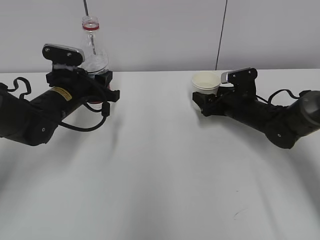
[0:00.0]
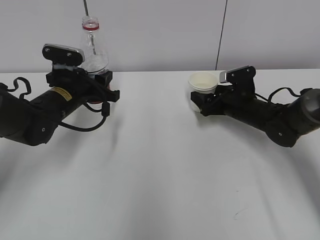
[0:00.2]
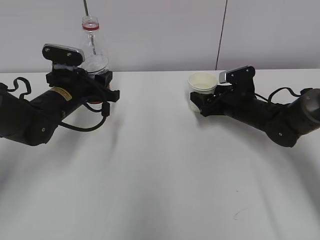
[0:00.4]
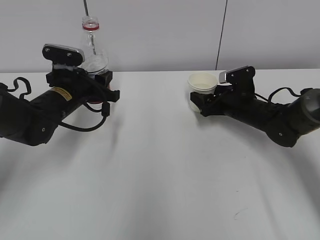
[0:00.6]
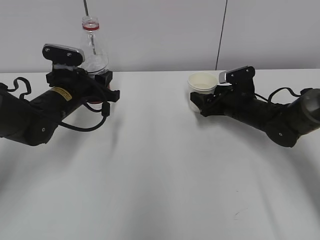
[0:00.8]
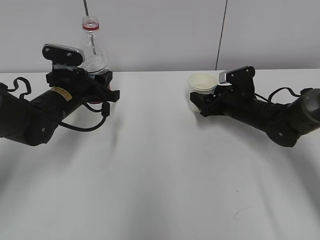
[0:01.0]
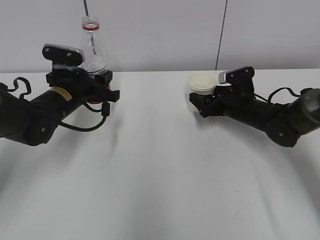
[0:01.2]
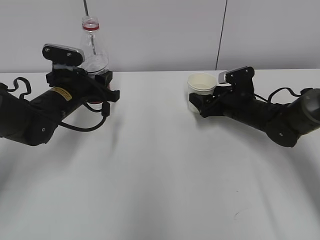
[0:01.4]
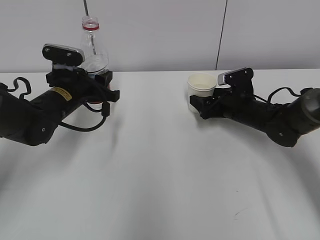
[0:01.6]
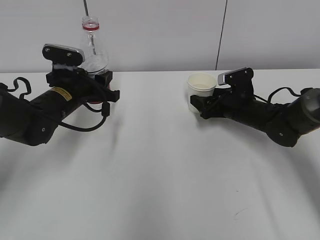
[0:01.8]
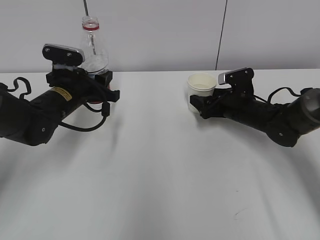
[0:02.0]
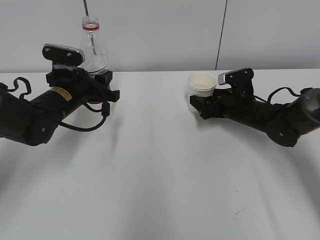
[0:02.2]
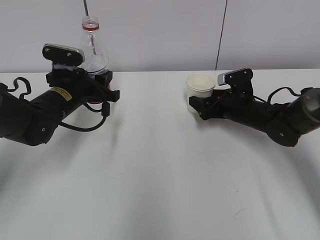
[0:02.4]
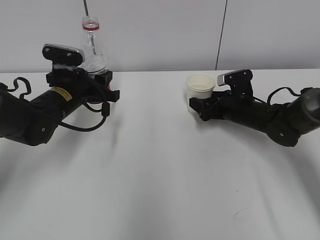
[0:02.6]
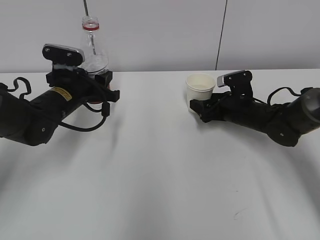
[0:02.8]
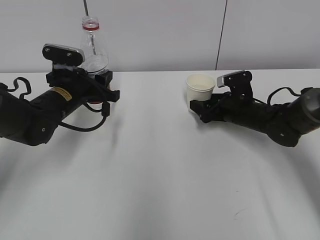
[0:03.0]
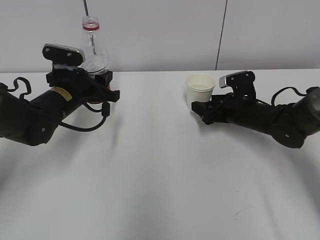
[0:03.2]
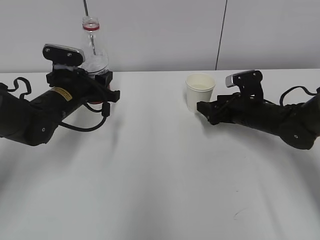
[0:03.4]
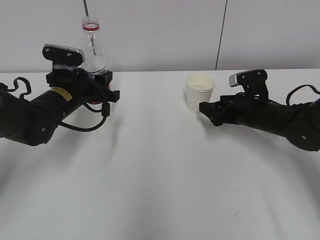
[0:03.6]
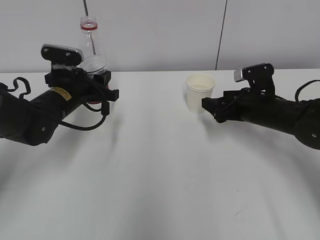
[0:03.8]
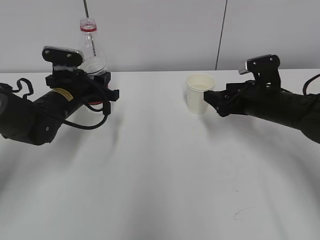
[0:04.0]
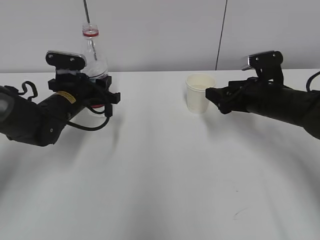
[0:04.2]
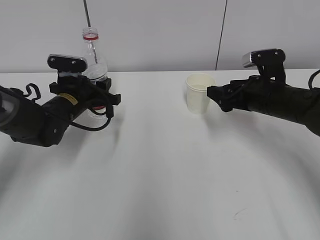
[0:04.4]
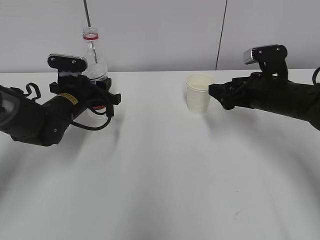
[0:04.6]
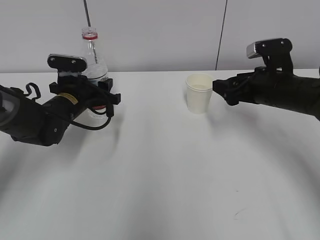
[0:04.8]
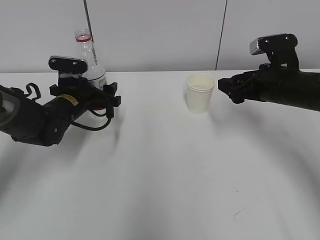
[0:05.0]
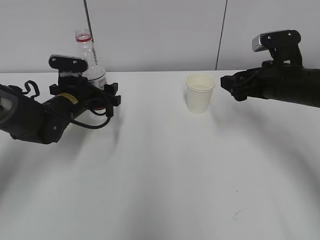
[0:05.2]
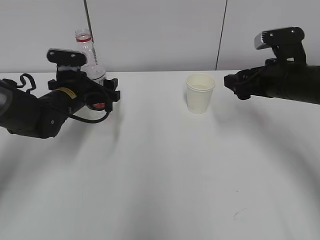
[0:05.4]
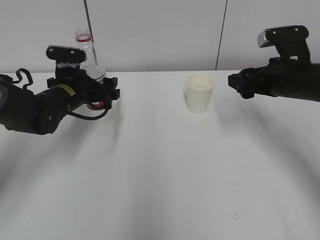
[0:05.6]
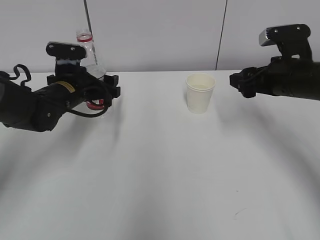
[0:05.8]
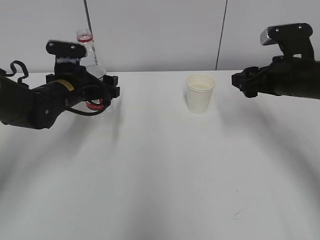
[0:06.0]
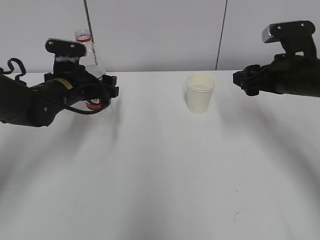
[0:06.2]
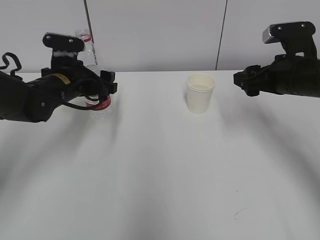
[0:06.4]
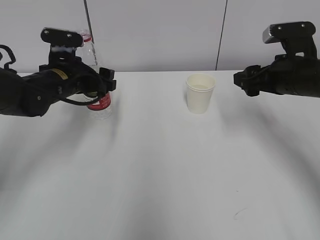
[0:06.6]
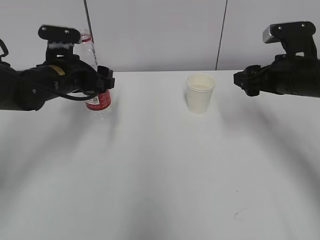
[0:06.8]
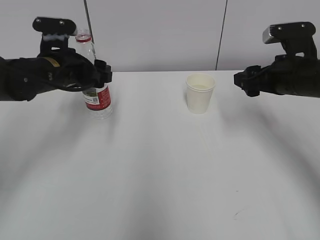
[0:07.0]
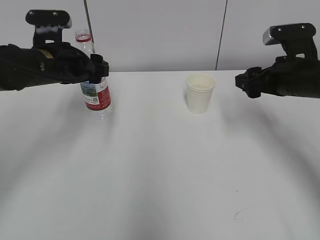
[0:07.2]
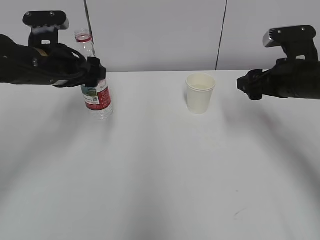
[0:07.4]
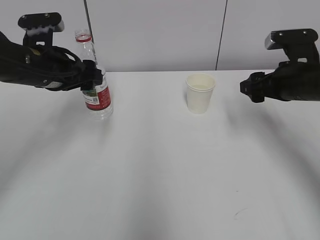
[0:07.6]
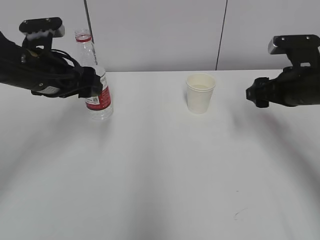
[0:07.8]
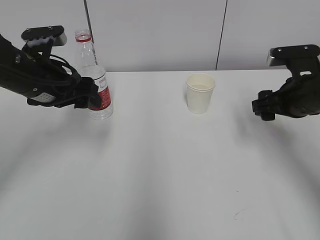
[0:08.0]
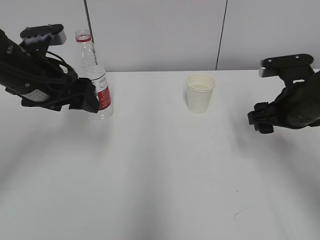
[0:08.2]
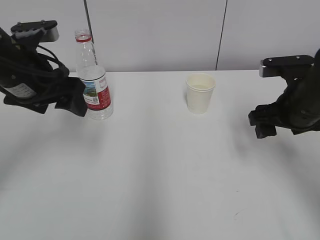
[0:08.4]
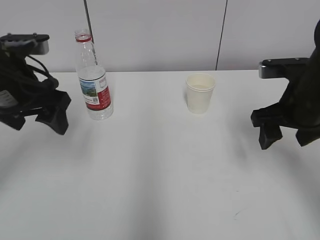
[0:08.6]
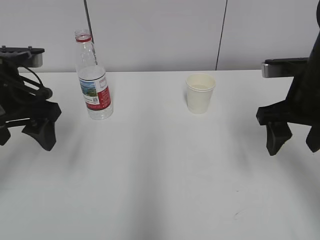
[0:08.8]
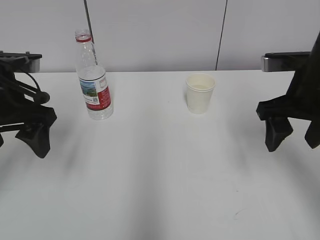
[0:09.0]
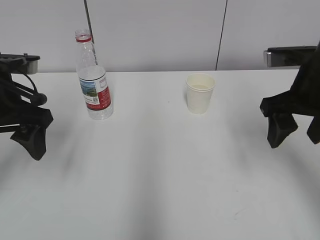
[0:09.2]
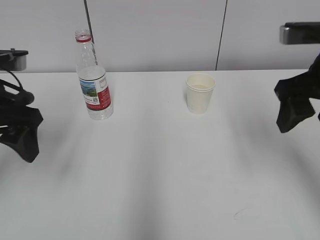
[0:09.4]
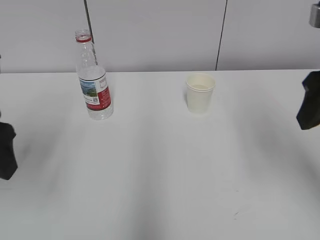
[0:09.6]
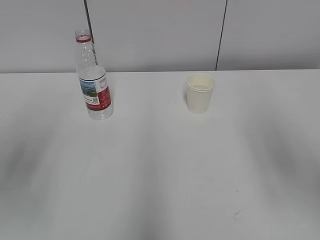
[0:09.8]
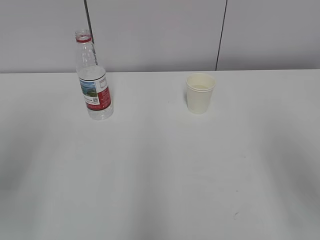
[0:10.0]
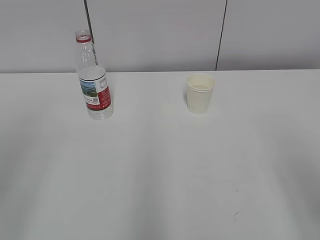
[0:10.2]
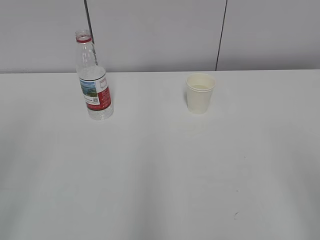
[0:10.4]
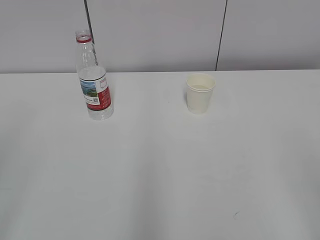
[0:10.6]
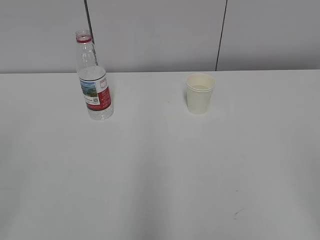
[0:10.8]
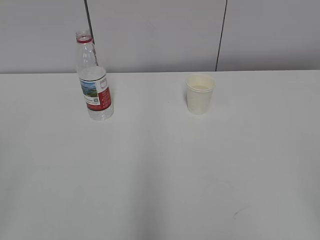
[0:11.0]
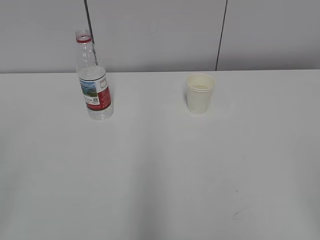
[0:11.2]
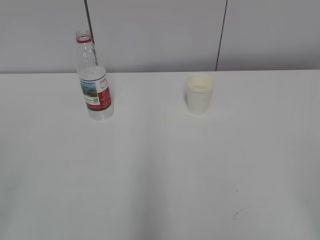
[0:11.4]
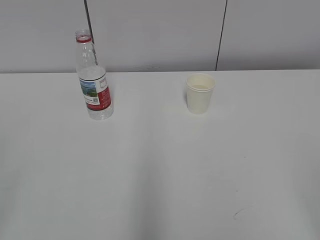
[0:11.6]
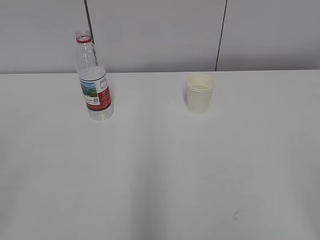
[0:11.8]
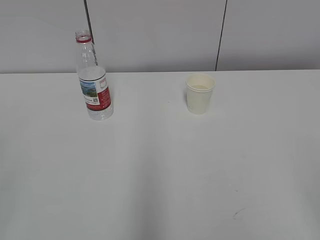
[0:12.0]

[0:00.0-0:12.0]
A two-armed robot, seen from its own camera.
0:00.0 to 0:01.6: Neither gripper changes place.
0:01.6 to 0:03.0: Neither gripper changes place.
0:03.0 to 0:04.4: The right gripper heads upward and backward, covering about 10 cm.
0:04.4 to 0:06.0: The right gripper travels upward by some 5 cm, while the left gripper opens.
0:06.0 to 0:07.6: The left gripper goes about 10 cm upward.
0:07.6 to 0:09.0: The right gripper is displaced backward and upward by about 10 cm; the left gripper goes approximately 10 cm backward.
0:09.0 to 0:10.4: Both grippers move backward, about 20 cm.

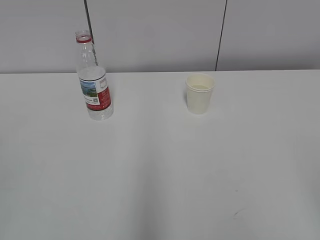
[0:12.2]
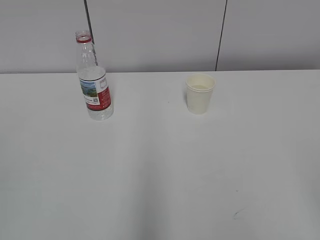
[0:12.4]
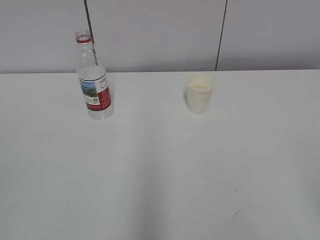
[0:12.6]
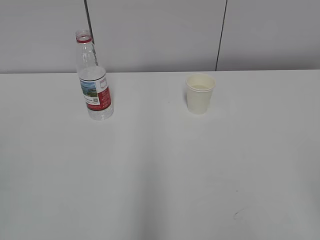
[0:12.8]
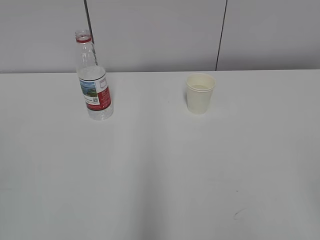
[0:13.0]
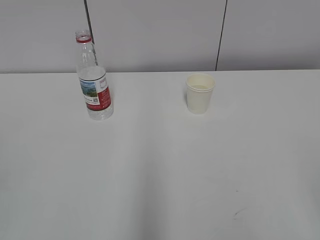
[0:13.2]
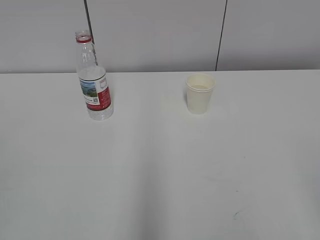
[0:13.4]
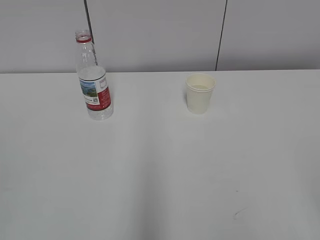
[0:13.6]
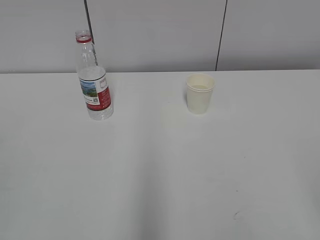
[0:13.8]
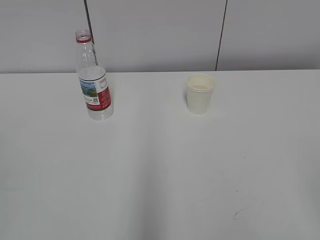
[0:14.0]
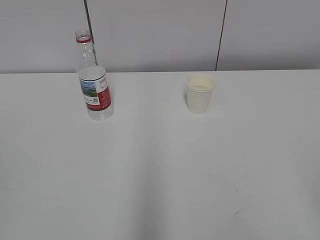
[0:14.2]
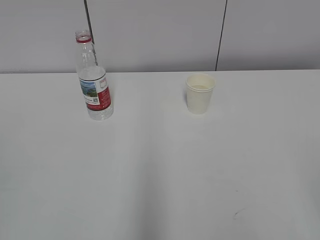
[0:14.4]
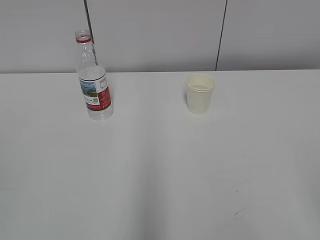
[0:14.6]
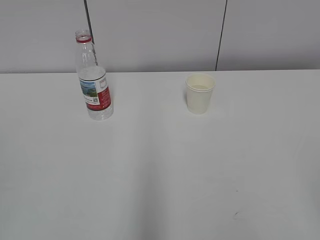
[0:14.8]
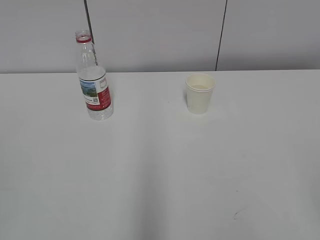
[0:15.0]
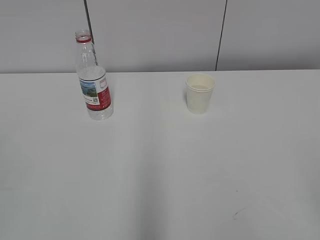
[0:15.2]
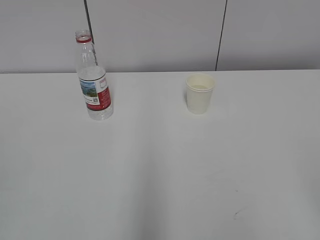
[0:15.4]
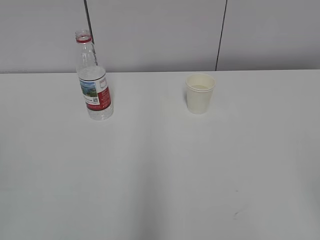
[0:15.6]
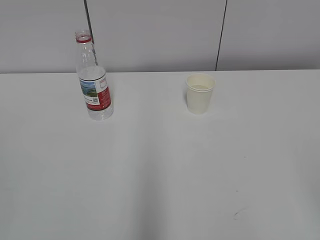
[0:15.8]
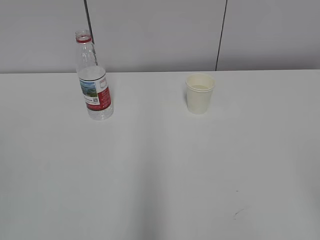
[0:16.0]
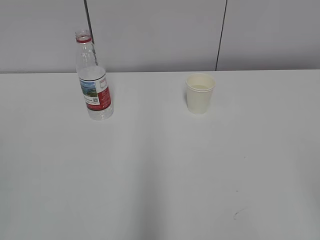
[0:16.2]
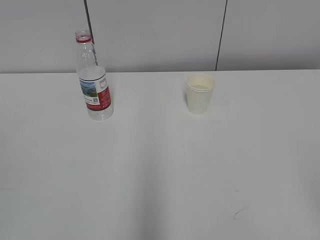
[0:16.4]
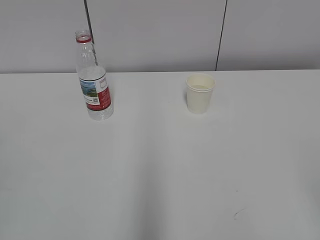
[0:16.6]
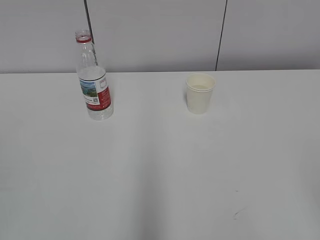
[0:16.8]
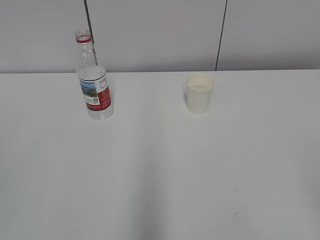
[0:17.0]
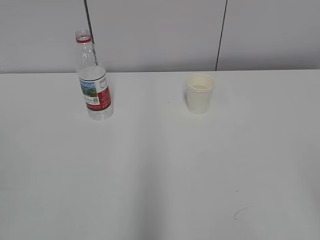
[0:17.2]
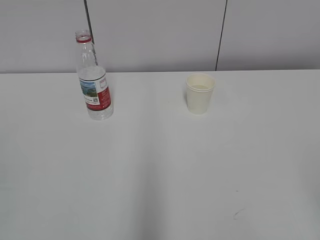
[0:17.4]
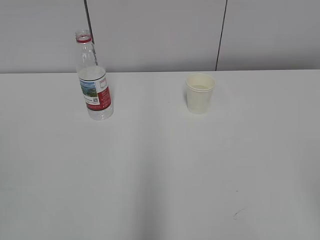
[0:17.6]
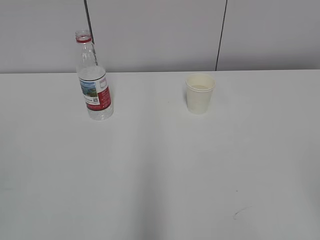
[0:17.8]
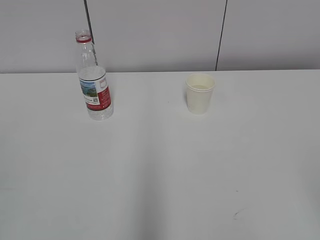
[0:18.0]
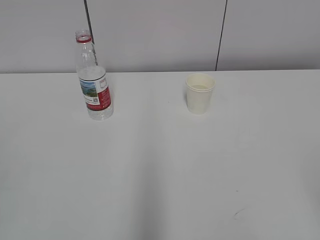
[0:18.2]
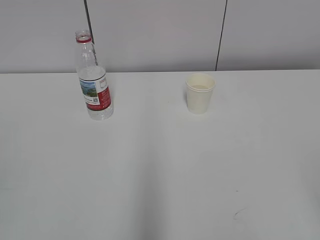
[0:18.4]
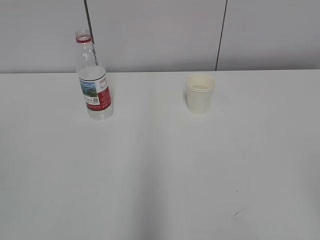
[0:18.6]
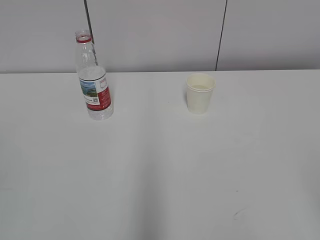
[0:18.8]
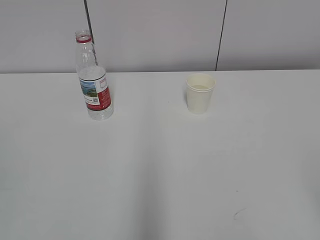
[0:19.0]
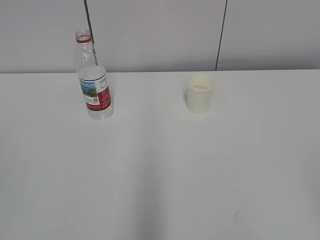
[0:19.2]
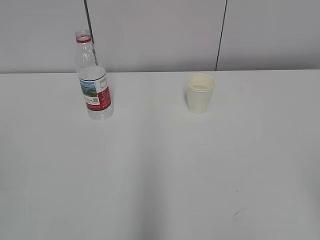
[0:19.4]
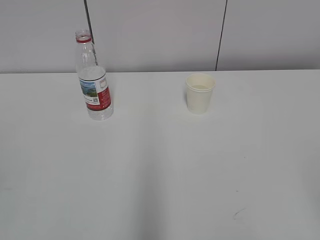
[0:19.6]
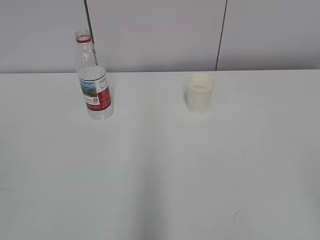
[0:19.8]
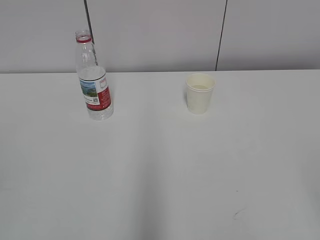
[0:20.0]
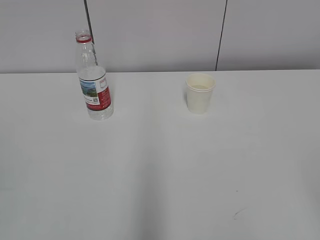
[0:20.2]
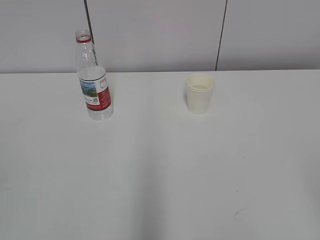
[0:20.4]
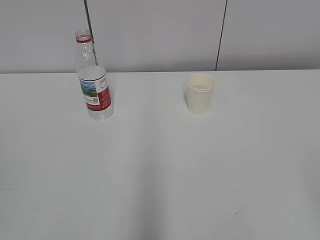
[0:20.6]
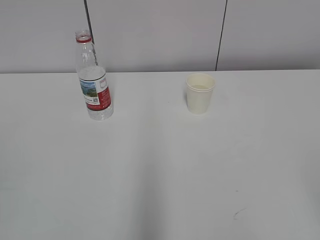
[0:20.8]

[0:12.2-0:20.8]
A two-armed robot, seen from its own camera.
0:12.2 to 0:20.8: Both grippers stay put.
